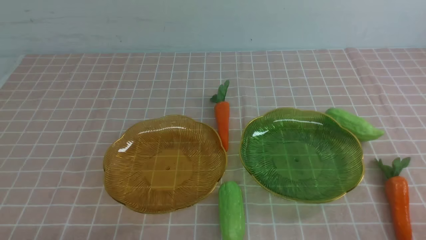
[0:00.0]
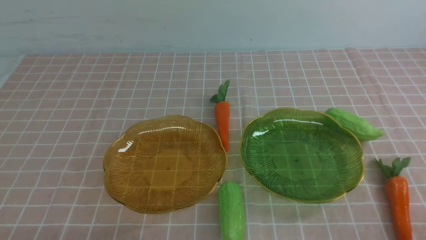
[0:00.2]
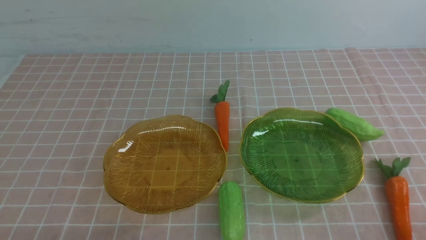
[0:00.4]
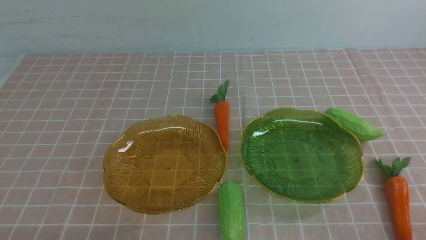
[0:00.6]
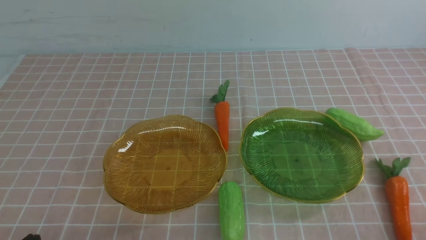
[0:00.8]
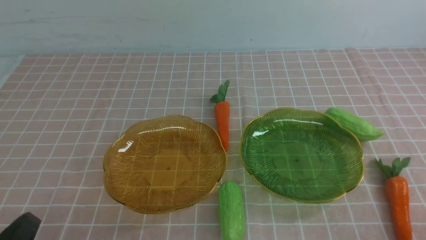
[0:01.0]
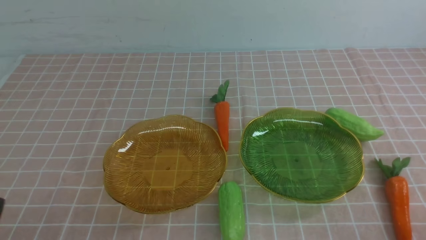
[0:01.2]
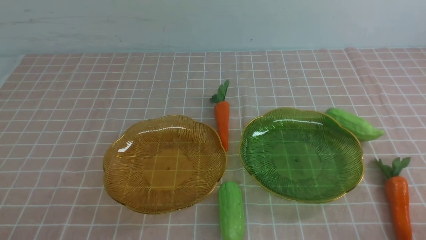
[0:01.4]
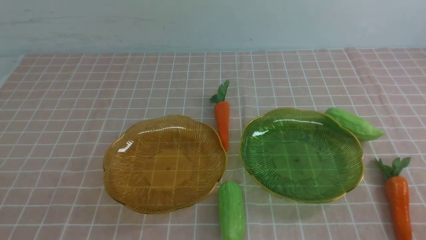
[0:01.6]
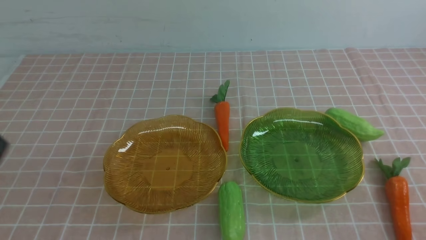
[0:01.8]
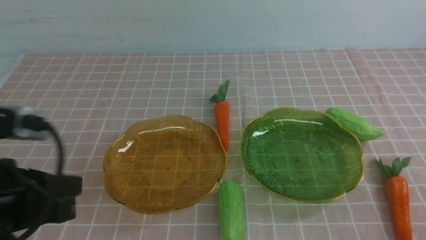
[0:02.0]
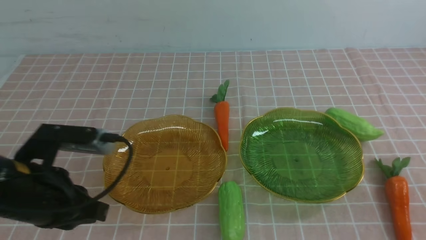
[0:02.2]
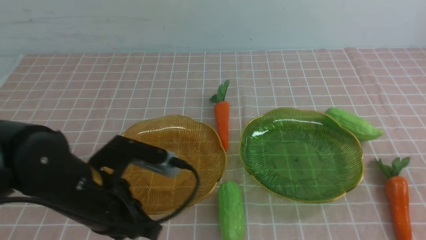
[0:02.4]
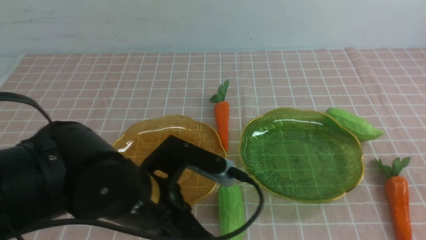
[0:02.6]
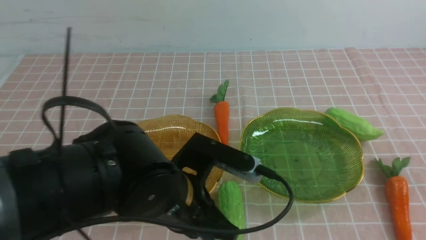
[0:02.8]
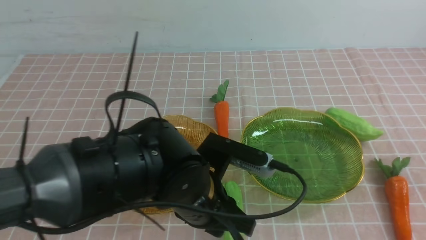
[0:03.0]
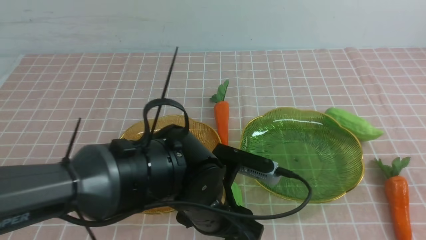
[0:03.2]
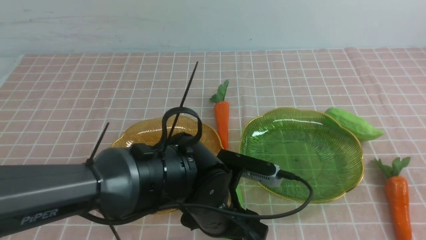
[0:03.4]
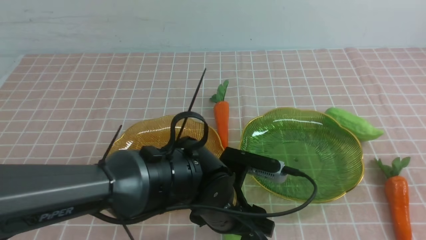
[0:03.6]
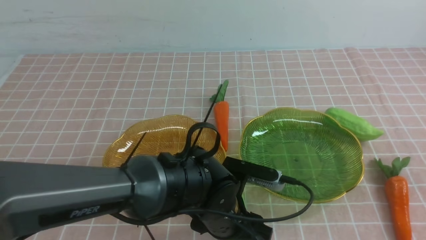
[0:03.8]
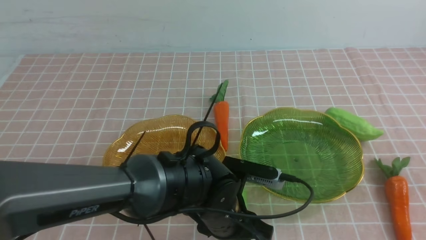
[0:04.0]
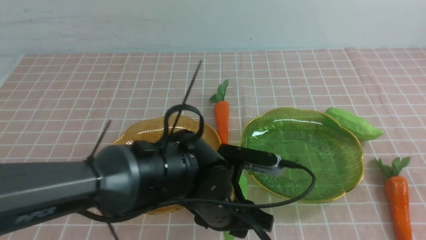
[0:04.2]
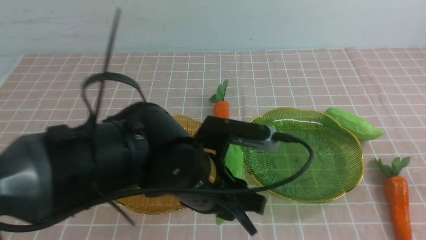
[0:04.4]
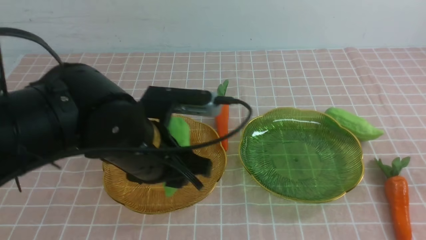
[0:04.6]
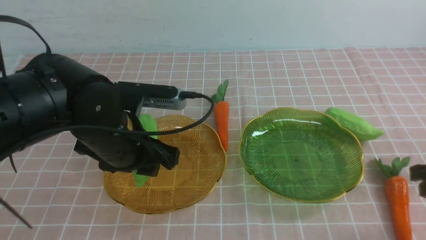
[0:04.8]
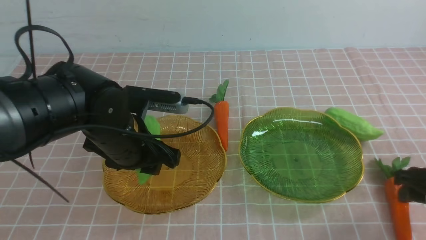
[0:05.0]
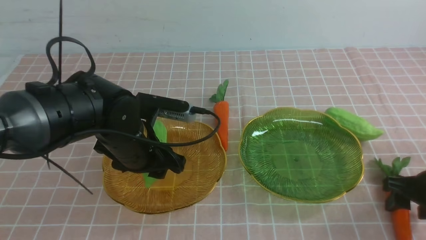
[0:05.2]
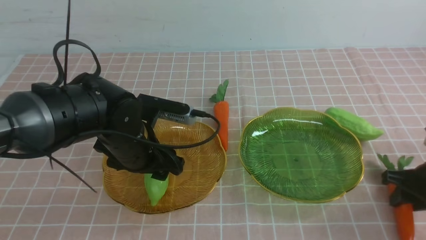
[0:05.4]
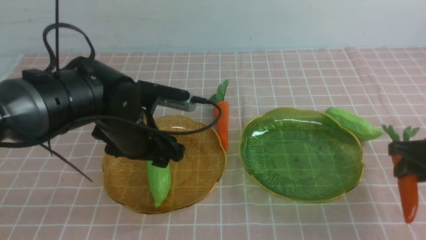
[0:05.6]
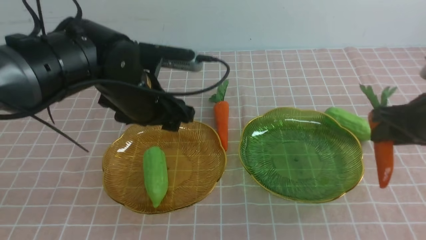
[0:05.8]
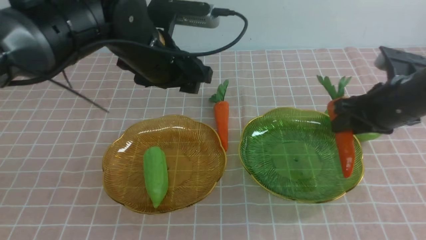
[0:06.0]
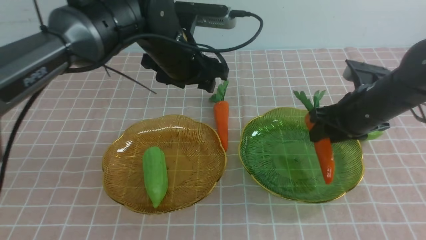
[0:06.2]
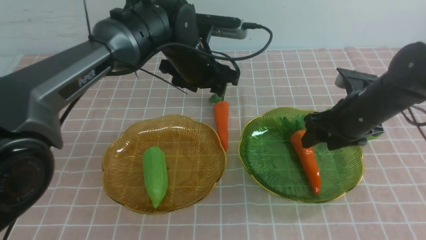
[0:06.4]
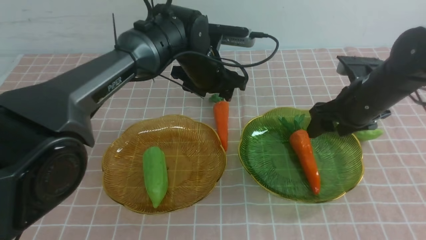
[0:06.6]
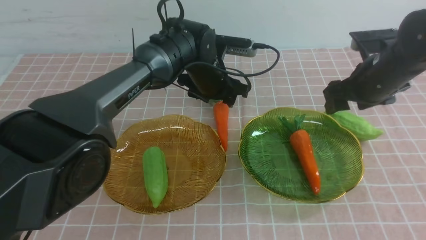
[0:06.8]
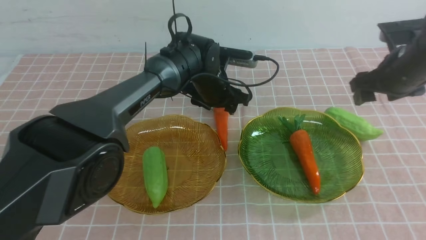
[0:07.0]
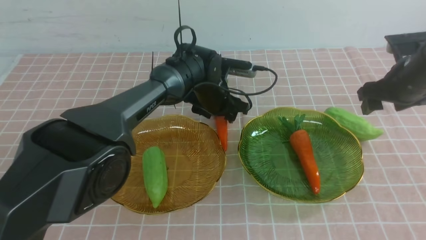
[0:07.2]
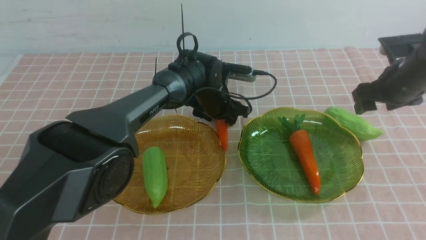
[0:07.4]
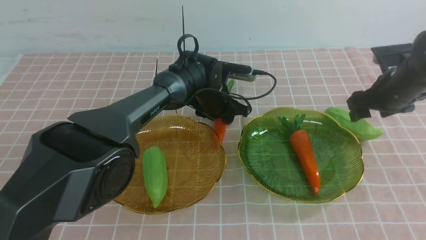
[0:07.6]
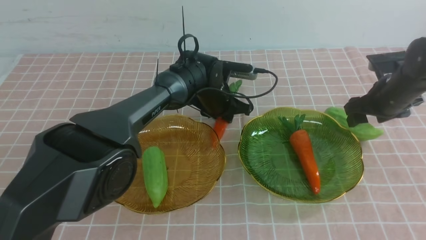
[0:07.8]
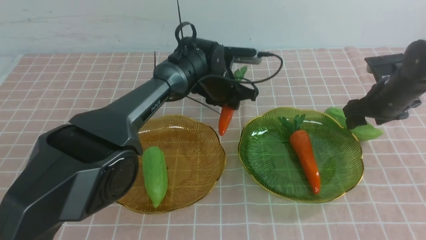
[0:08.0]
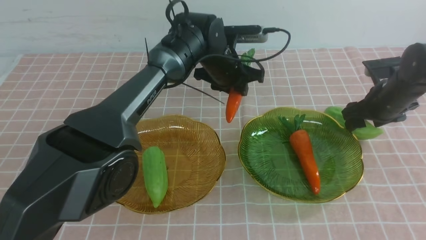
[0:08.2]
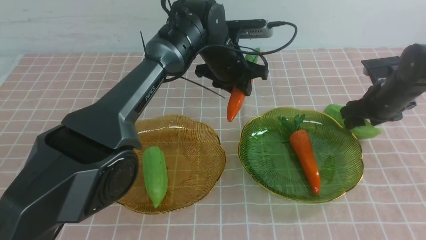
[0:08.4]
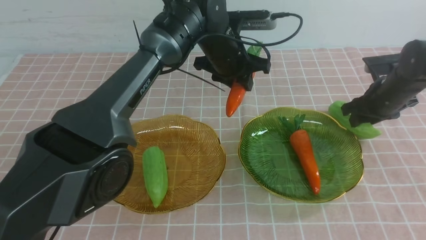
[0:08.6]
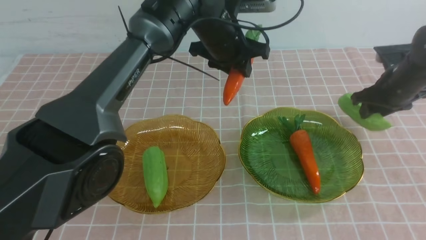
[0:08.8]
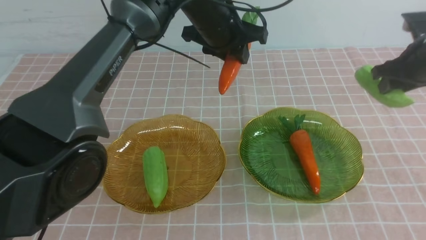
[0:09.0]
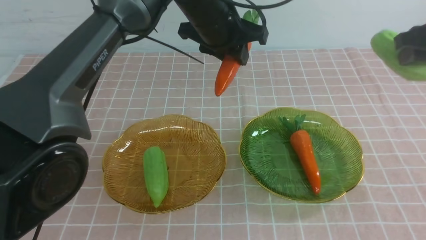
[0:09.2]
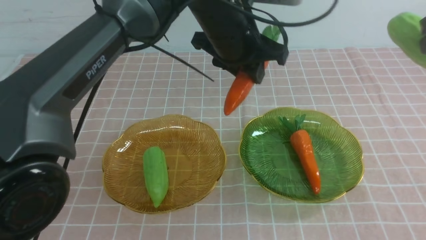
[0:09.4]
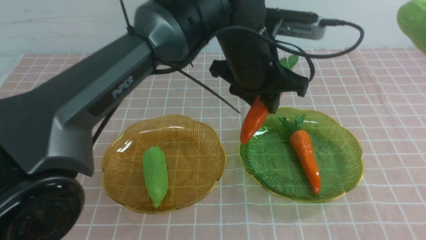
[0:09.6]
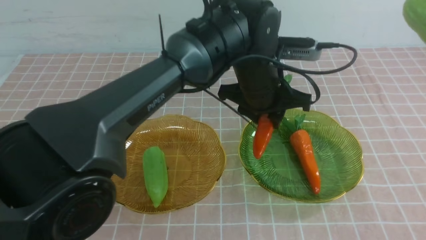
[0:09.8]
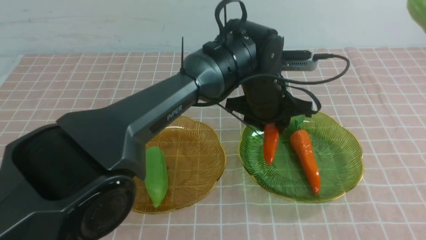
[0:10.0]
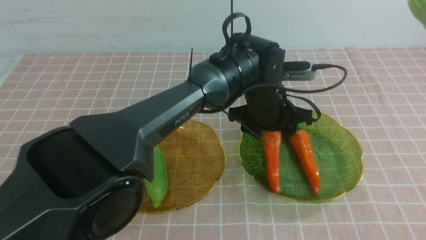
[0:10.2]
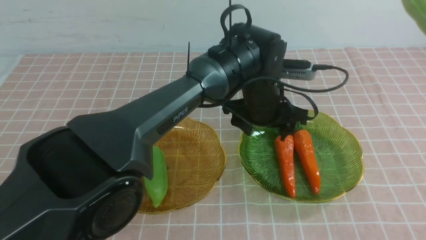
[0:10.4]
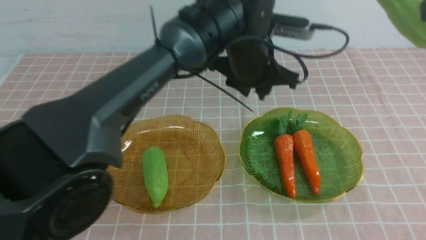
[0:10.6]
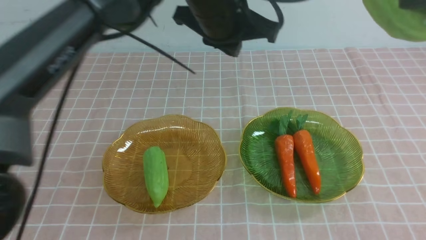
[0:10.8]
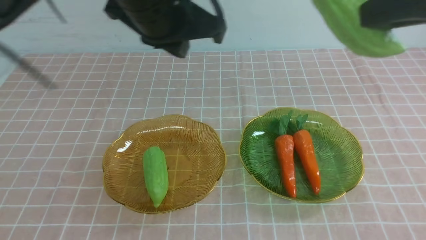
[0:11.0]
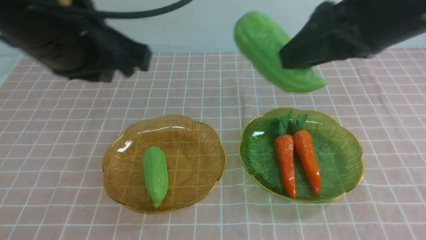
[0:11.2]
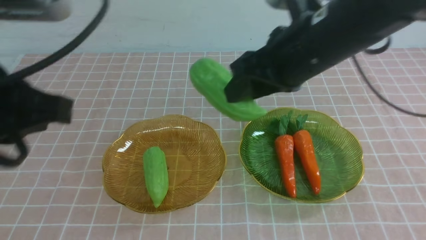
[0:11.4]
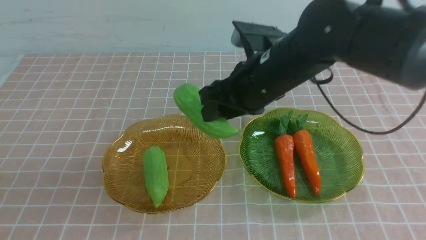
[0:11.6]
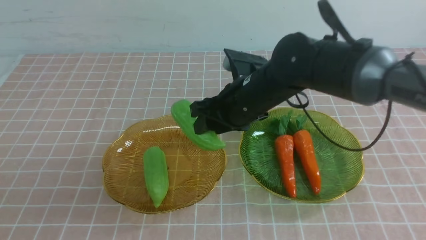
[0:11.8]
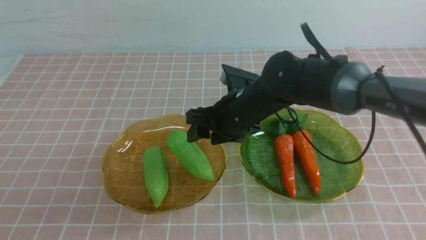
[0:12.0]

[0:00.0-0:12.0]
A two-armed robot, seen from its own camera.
Step, 0:00.0 to 0:04.8: use the left arm to grab a chayote and put it into the left plate.
Step, 0:05.0 to 0:06.4: use the right arm to grab a carrot and put it into the right plate.
Step, 0:06.6 to 0:10.0: use the left arm to grab a carrot and put it into the right plate.
Step, 0:10.4 to 0:12.0: Grab the chayote with your right arm and put it on the left plate.
0:01.6 to 0:03.0: The left gripper shifts about 30 cm to the right, forward and downward, and opens up, while the right gripper shifts about 15 cm upward and forward.
0:03.0 to 0:04.4: The right gripper travels forward and downward by some 10 cm. Meanwhile the left gripper travels to the left and upward by roughly 10 cm, and closes its fingers.
0:04.4 to 0:06.0: The left gripper moves forward, about 15 cm, and opens its fingers; the right gripper moves forward and to the left, some 15 cm, and opens up.
0:06.0 to 0:07.6: The left gripper travels downward, forward and to the right by some 20 cm, and closes. Meanwhile the right gripper is displaced forward, to the right and downward by roughly 10 cm, and opens up.
0:07.6 to 0:09.0: The two grippers go approximately 20 cm upward and backward. The right gripper closes.
0:09.0 to 0:10.4: The left gripper is displaced to the left, upward and backward by roughly 15 cm, and closes. Meanwhile the right gripper travels to the left and backward by roughly 10 cm.
0:10.4 to 0:12.0: The left gripper moves backward and to the left, about 35 cm, while the right gripper travels downward, to the left and forward by about 25 cm.

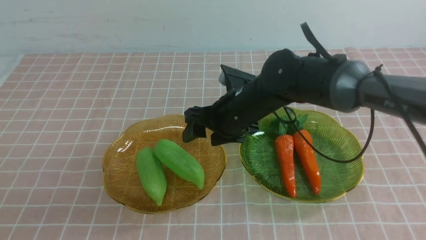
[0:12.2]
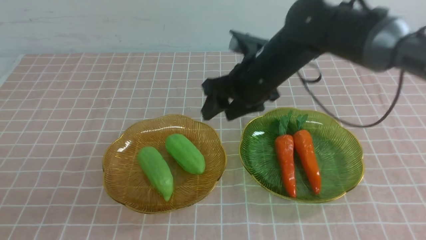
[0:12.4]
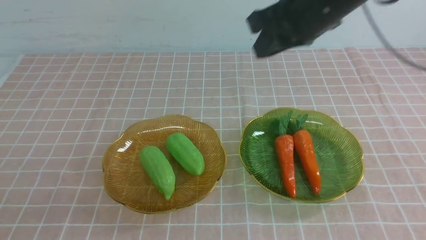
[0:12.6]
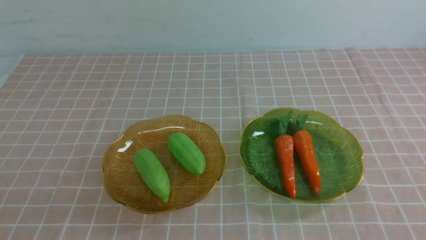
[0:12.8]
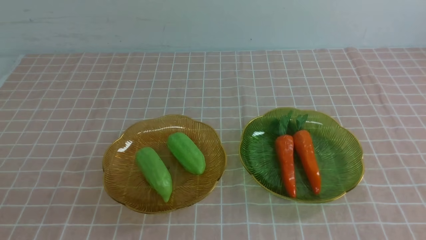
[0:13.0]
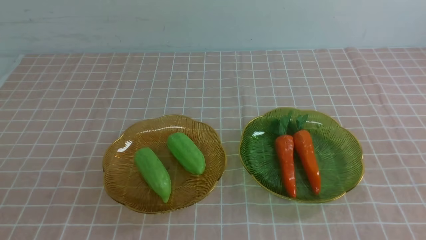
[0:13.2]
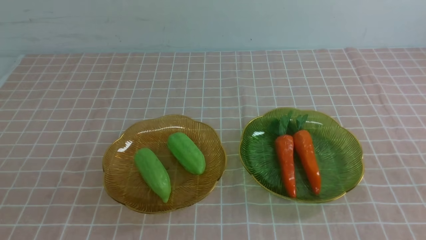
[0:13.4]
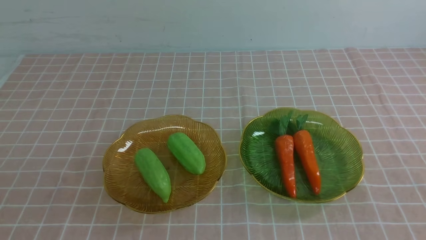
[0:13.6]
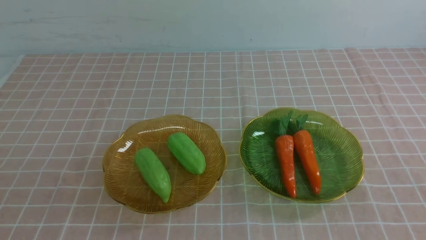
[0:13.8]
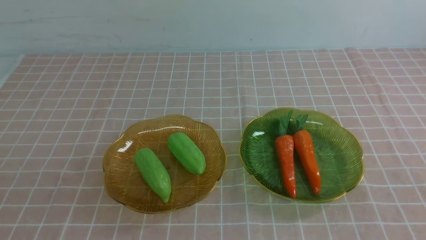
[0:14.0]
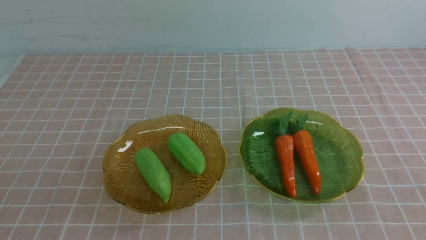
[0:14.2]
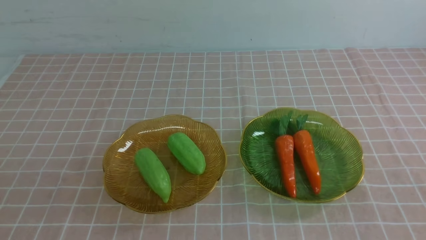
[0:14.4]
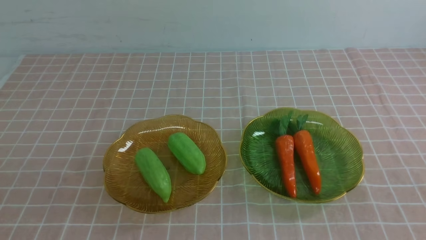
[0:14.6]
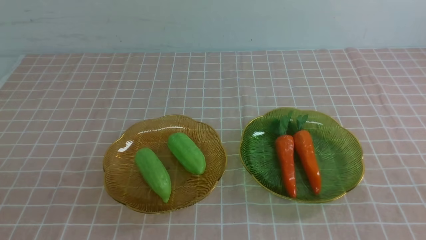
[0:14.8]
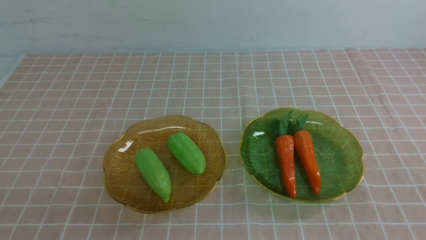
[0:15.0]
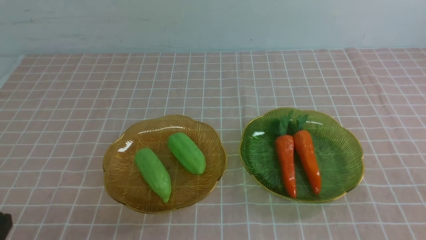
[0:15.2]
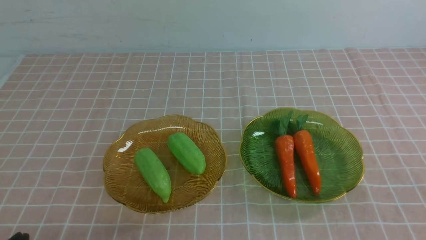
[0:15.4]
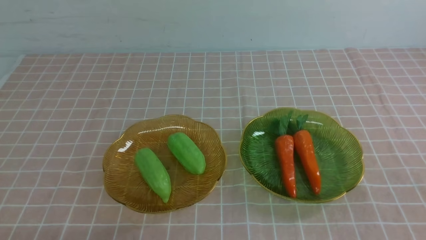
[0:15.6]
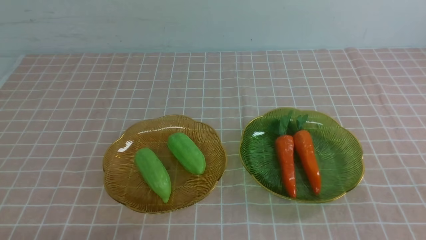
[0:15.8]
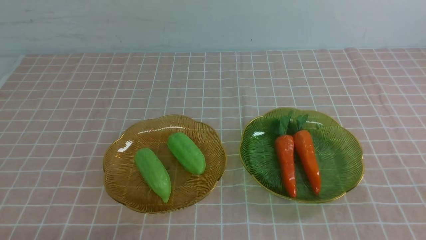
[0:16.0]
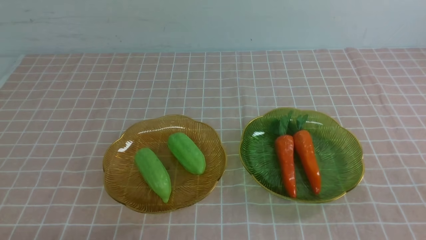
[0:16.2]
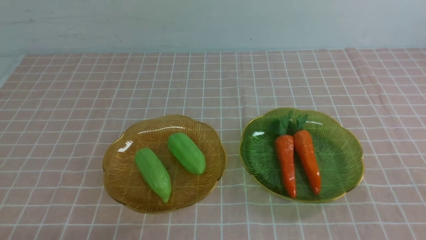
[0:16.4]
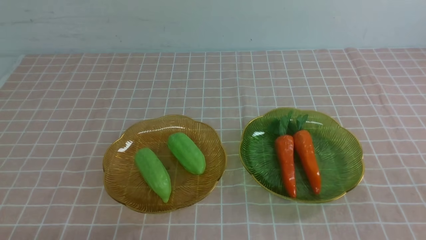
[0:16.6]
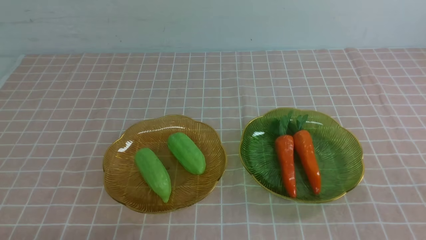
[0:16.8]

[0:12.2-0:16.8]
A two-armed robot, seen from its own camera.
0:12.2 to 0:13.8: The right gripper is displaced backward and to the right by approximately 40 cm, and closes its fingers.
